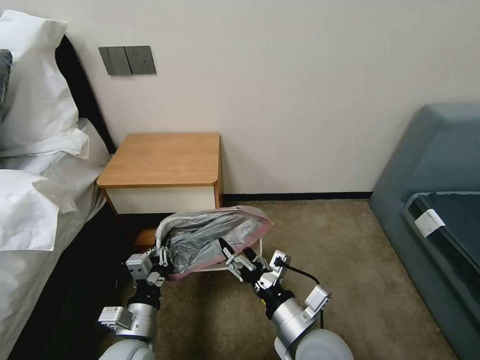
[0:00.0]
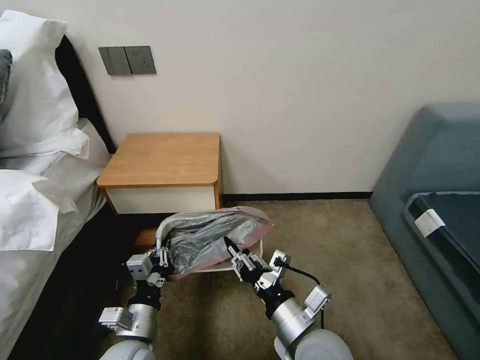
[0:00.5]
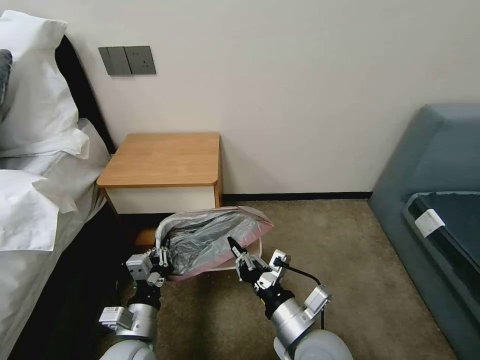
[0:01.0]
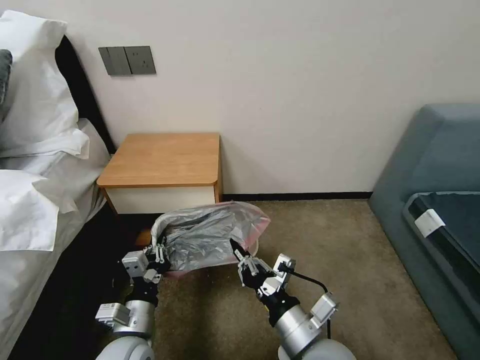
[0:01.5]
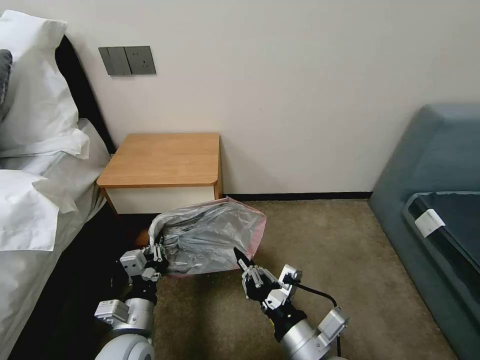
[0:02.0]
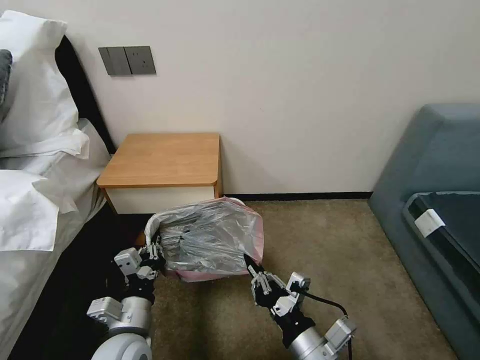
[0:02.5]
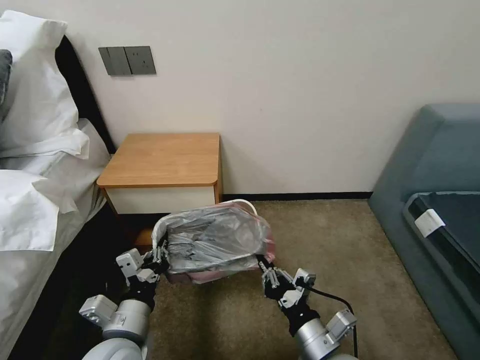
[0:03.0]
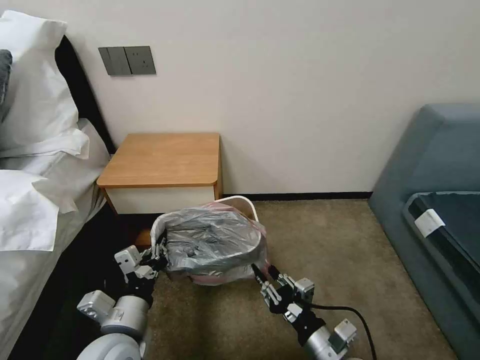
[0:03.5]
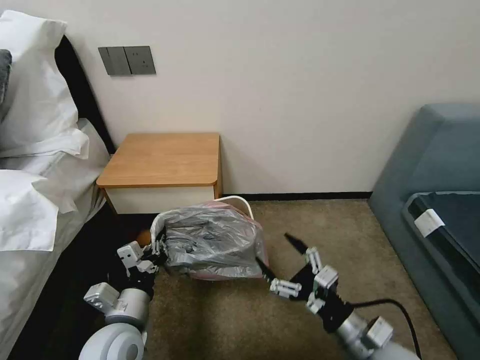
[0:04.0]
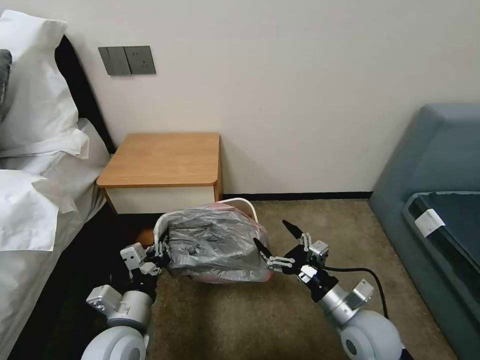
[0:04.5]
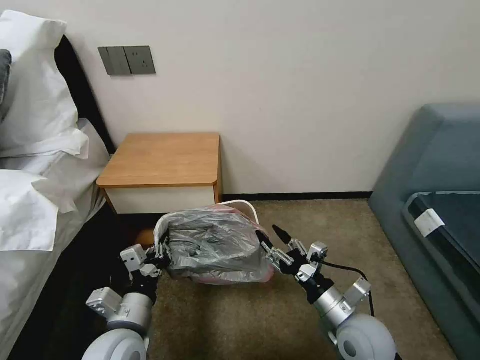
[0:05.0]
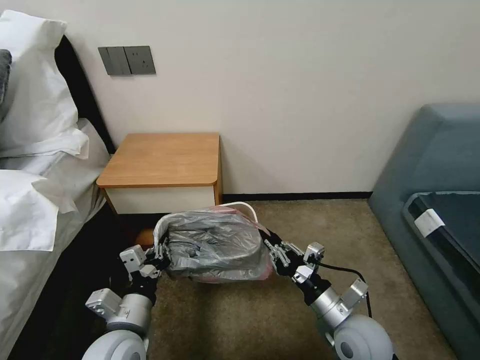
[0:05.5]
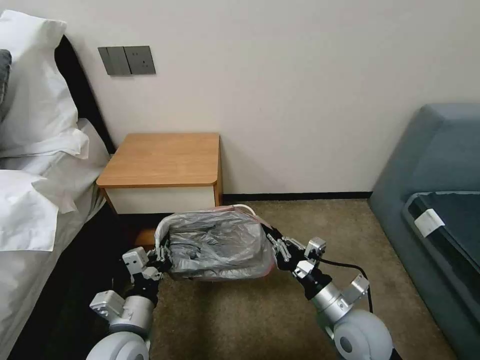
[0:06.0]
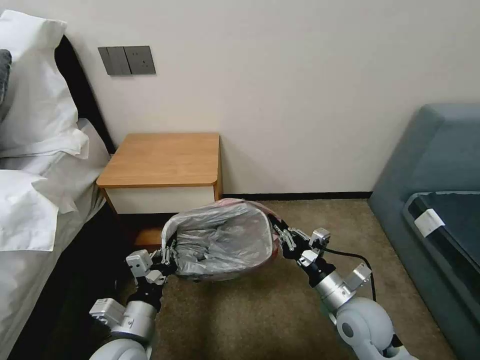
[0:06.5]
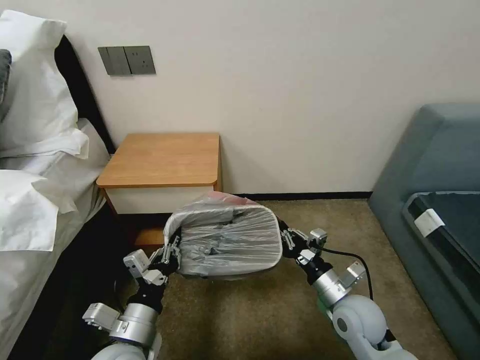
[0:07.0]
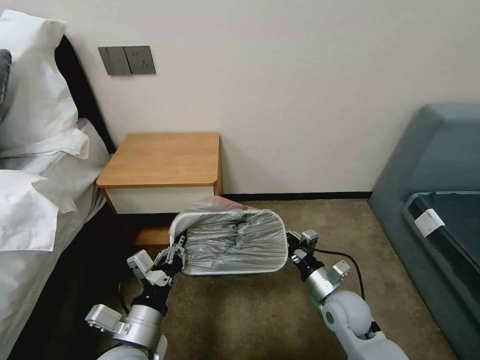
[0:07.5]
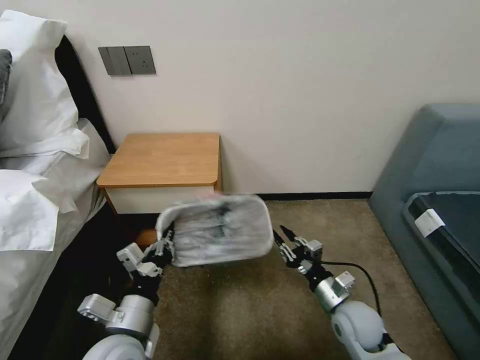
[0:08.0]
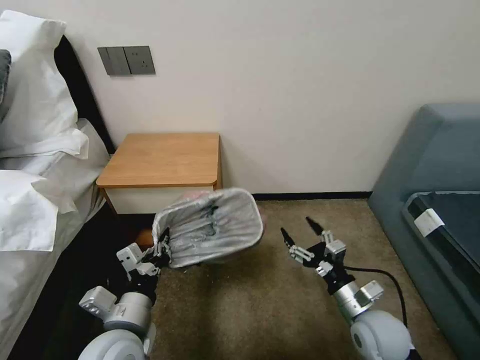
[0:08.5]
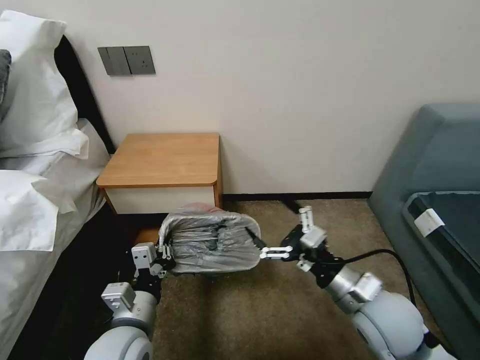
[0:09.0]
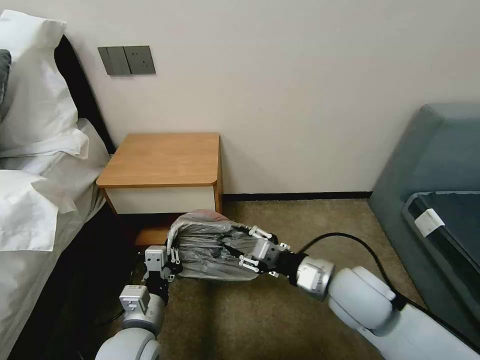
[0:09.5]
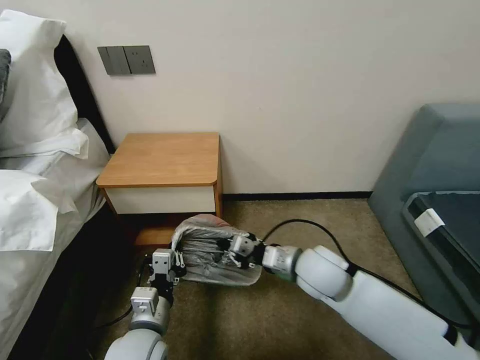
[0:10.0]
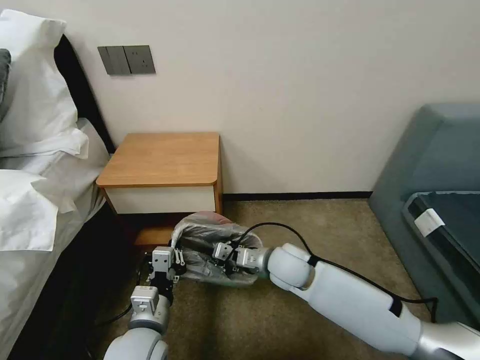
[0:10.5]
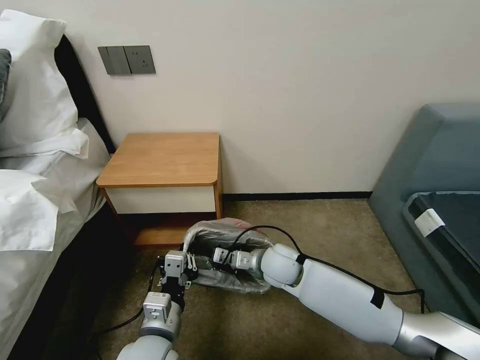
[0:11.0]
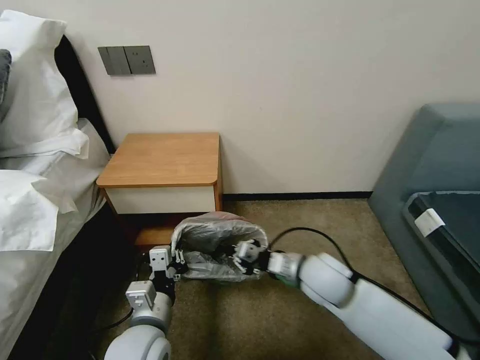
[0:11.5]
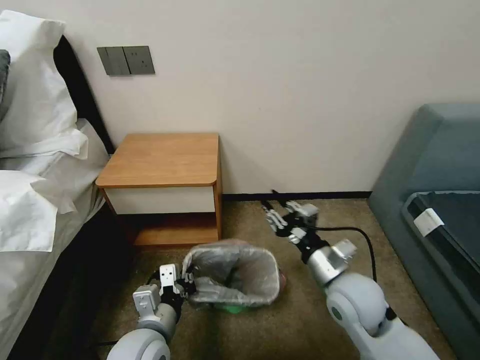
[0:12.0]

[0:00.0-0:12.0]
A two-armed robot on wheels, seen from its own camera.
Task of the whole recording: Pick up the garbage bag from the table and place it over the trash can.
0:00.0 to 0:02.0: The right gripper closes.
0:02.0 to 0:04.0: The right gripper heads to the right, covering some 10 cm, and opens.
0:04.0 to 0:06.0: The right gripper moves forward, about 5 cm, and closes its fingers.
0:06.0 to 0:08.0: The right gripper goes approximately 5 cm downward.
0:08.0 to 0:10.0: The right gripper moves upward, to the left and forward, approximately 15 cm, and opens and closes again.

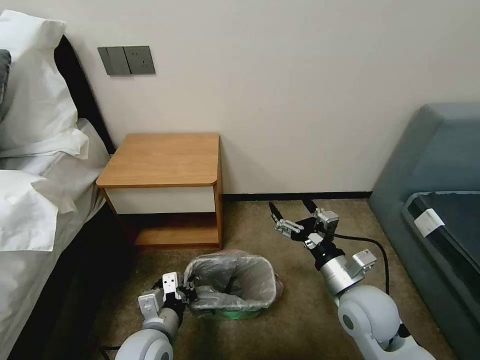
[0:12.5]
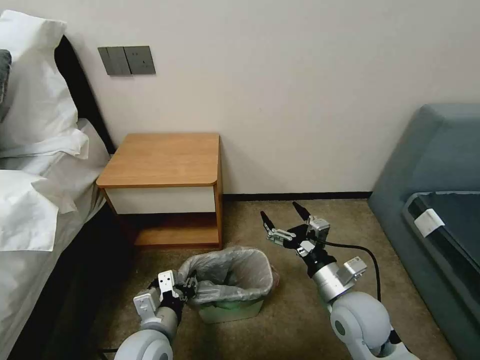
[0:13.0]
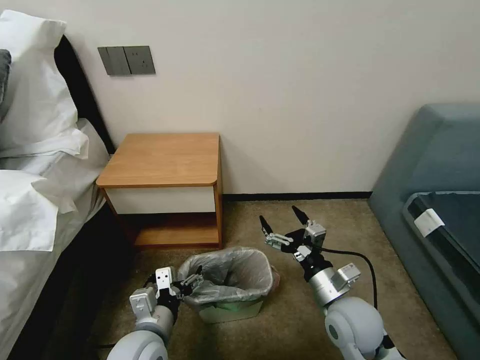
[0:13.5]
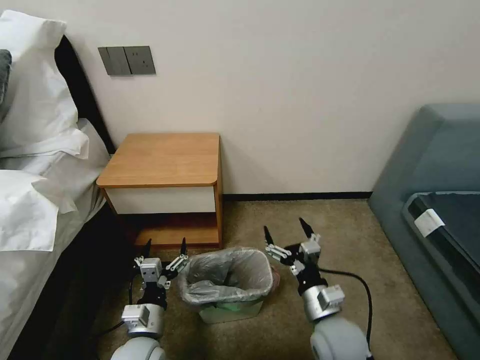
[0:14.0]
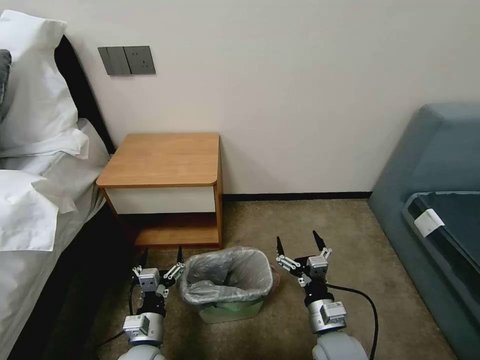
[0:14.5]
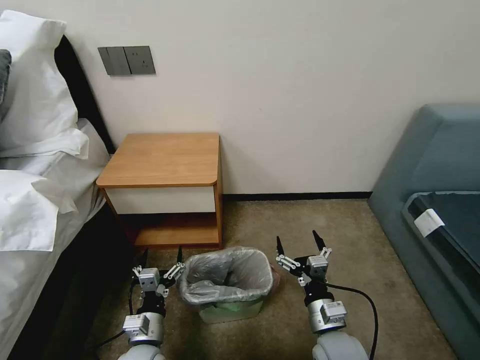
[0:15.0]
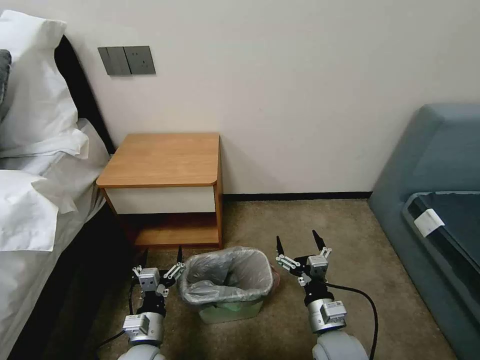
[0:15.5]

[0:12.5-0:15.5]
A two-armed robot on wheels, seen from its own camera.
Task of the whole recording: Pick up the garbage bag from the table and place it over the trash can.
0:12.5 to 0:14.0: The two grippers go roughly 5 cm downward. The left gripper opens.
0:14.0 to 0:15.5: The grippers move only a little.
